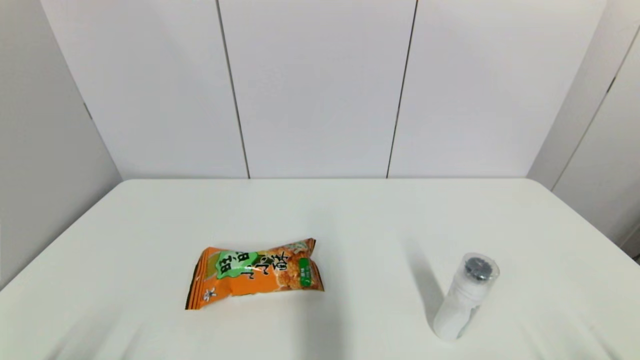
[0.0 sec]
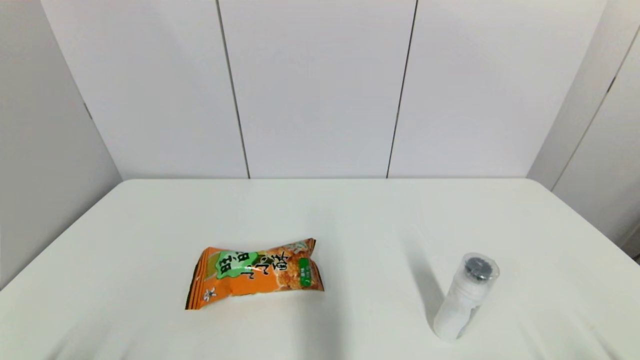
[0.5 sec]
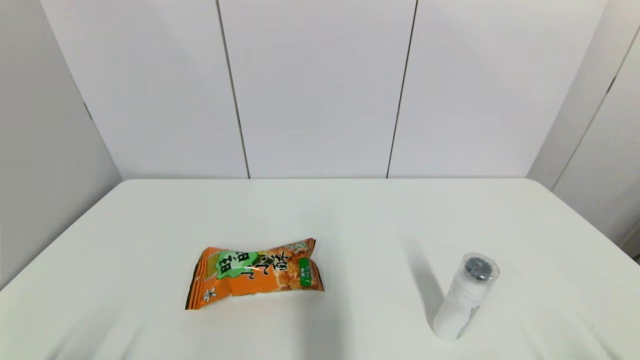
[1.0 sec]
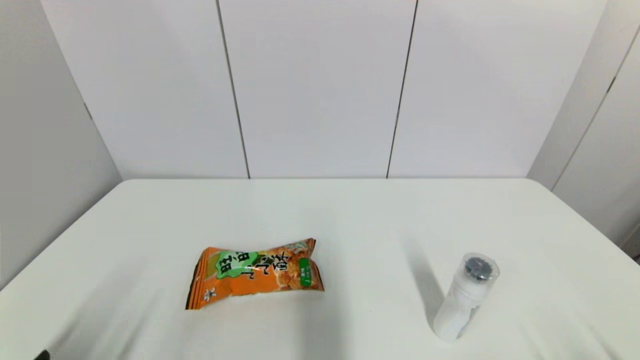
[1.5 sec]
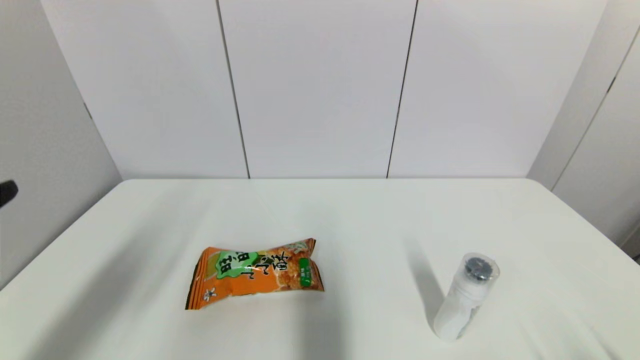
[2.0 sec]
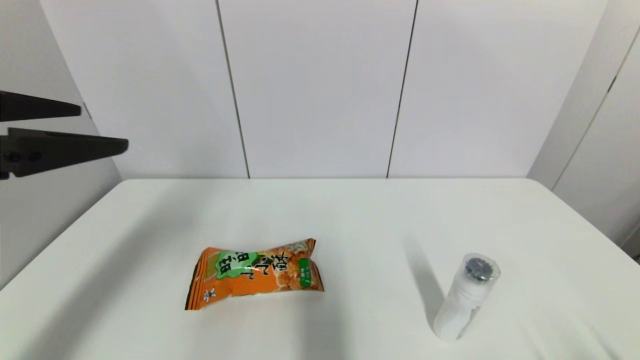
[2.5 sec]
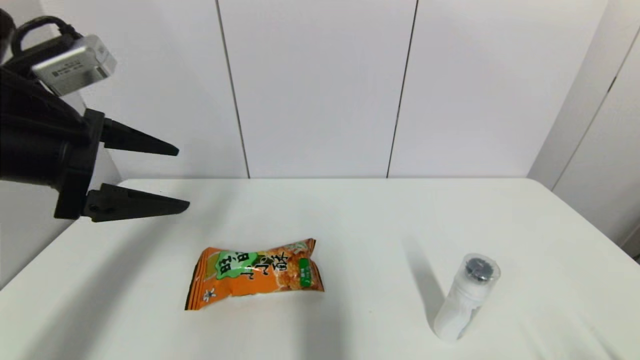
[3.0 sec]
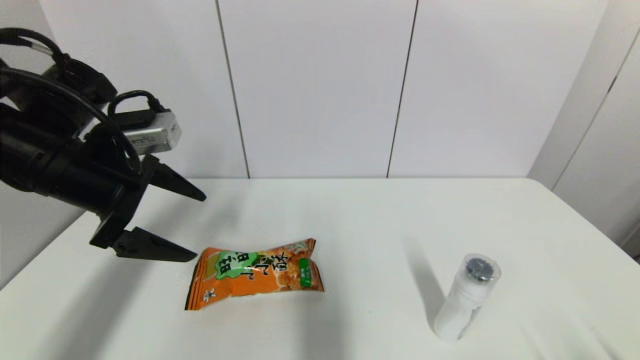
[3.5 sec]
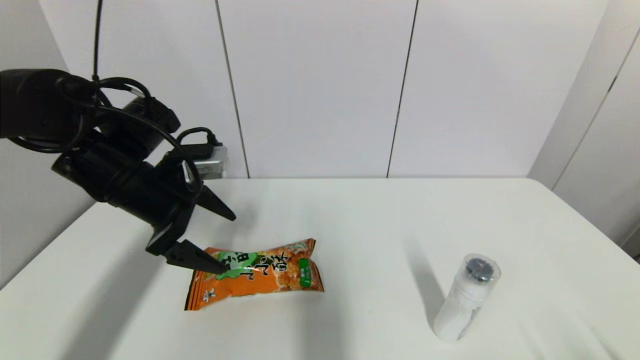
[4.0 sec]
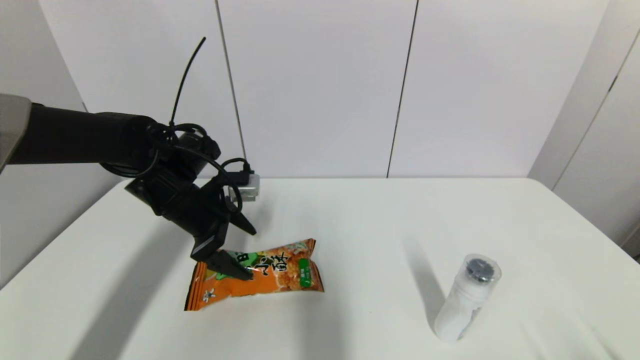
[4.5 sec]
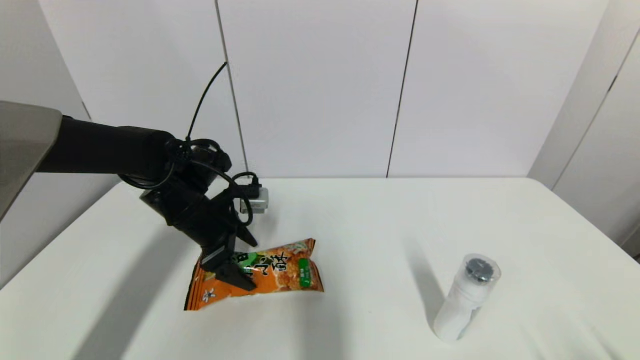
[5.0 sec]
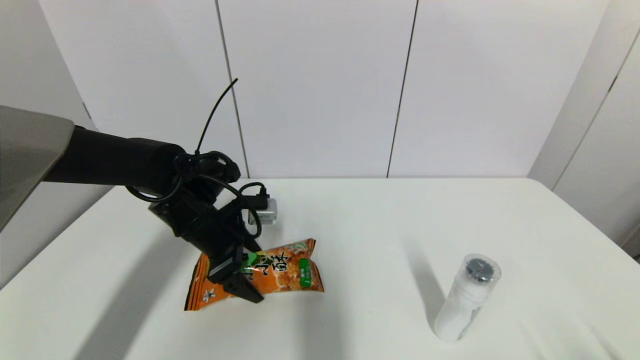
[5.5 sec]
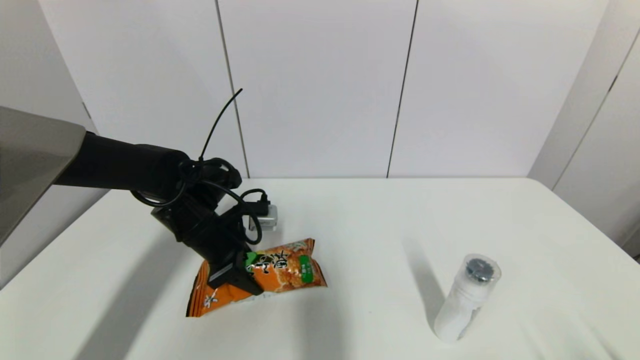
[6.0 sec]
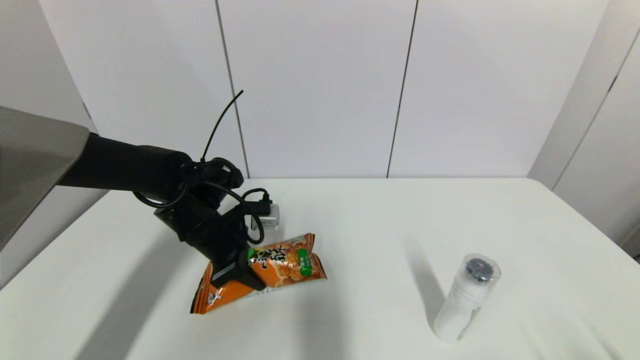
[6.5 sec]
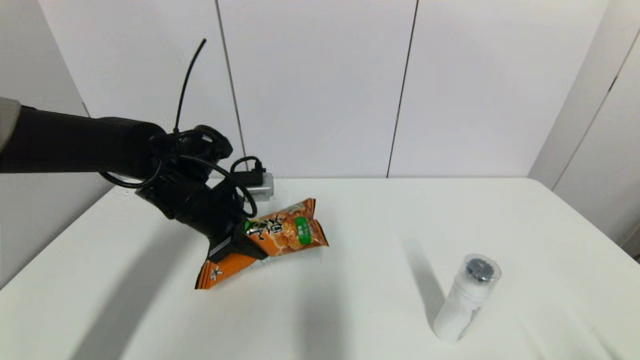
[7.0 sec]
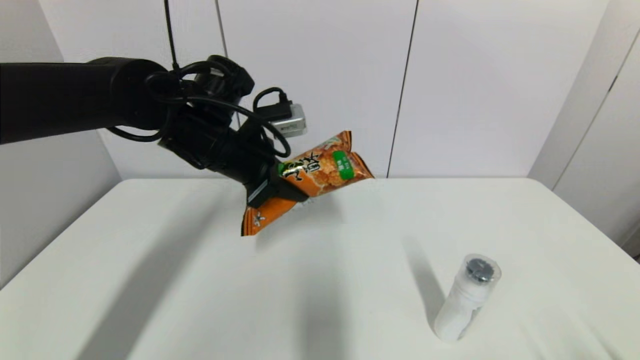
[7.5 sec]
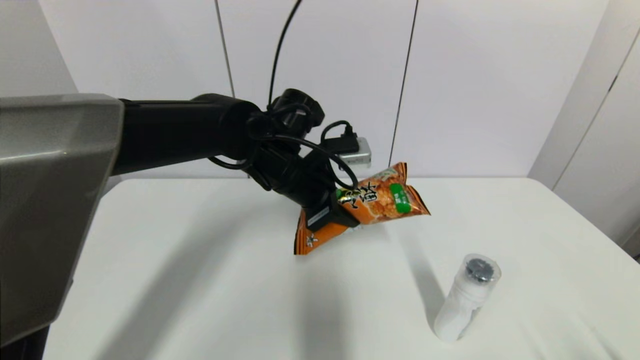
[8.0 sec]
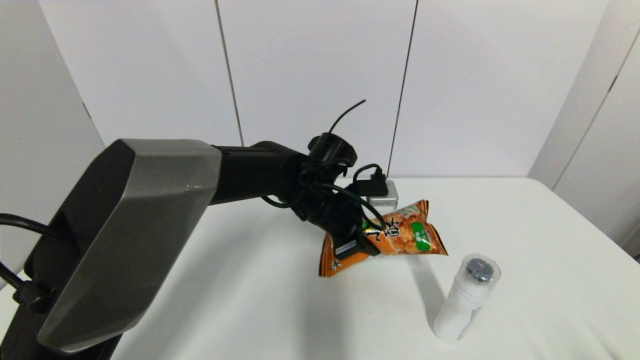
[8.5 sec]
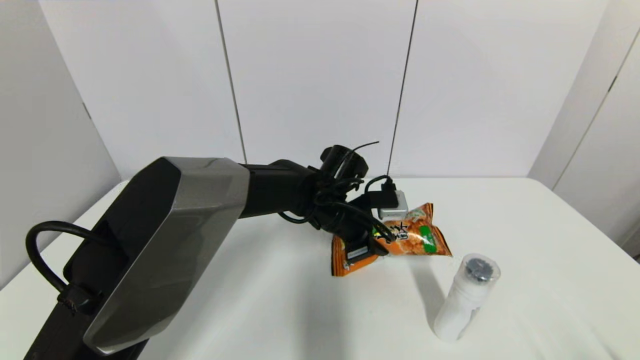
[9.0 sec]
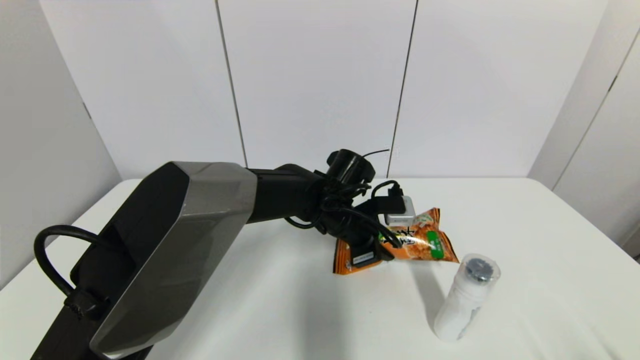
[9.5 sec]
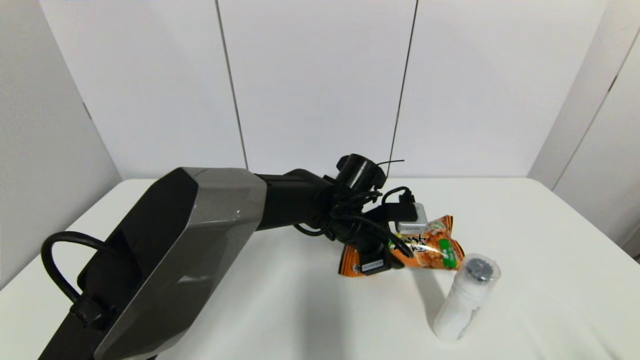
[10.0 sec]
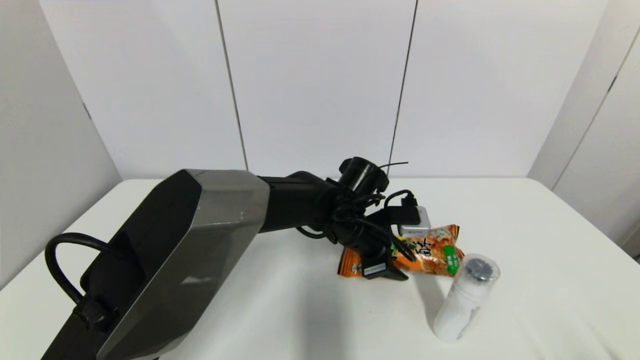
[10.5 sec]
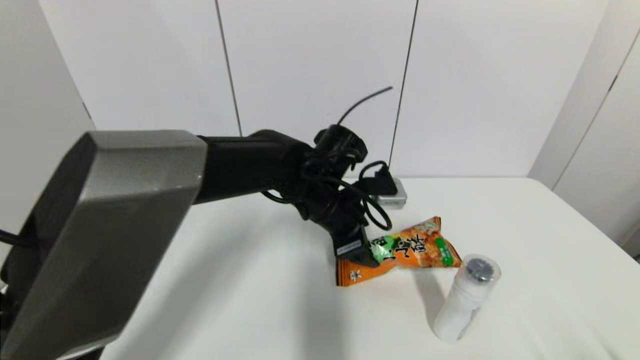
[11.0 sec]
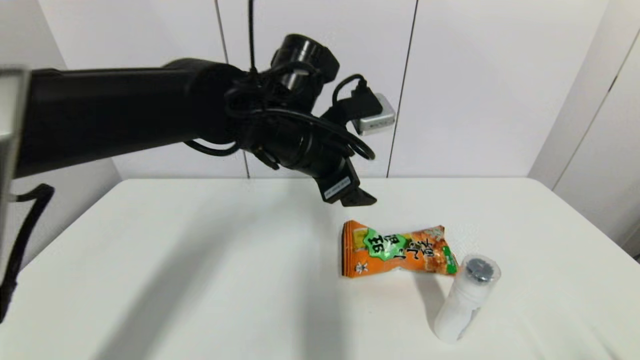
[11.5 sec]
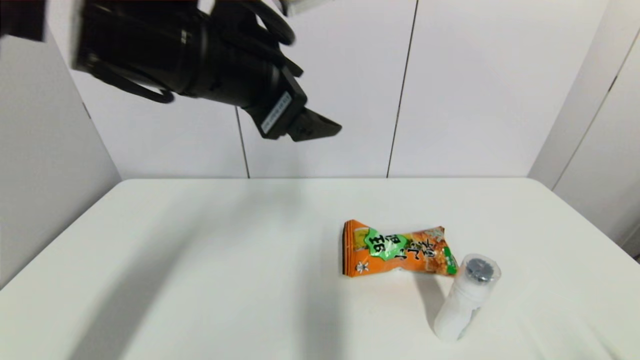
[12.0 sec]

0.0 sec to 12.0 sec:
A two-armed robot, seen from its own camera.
Step, 2.0 sec to 6.0 sec: Grasp the cookie with left gripper.
Step, 7.0 sec to 11.0 sec: Place the cookie on the table with left gripper.
0.0 sec to 2.0 sec: The left gripper shifts some 20 cm upward.
2.0 sec to 4.0 sec: The left gripper is displaced forward by roughly 25 cm.
4.0 sec to 6.0 sec: The left gripper travels downward by about 10 cm, and closes.
6.0 sec to 8.0 sec: The left gripper is displaced to the right and upward by some 15 cm.
8.0 sec to 10.0 sec: The left gripper is displaced downward and to the right by about 15 cm.
10.0 sec to 12.0 sec: The left gripper shifts some 35 cm upward, to the left and backward, and opens.

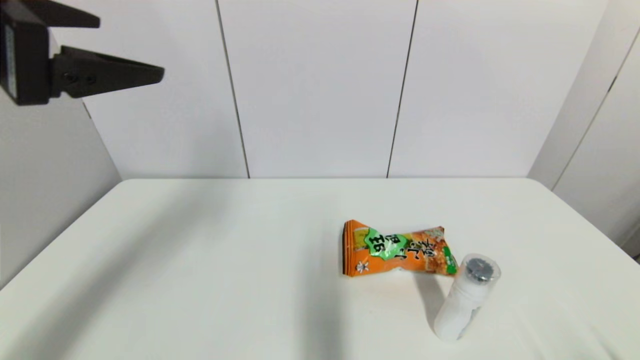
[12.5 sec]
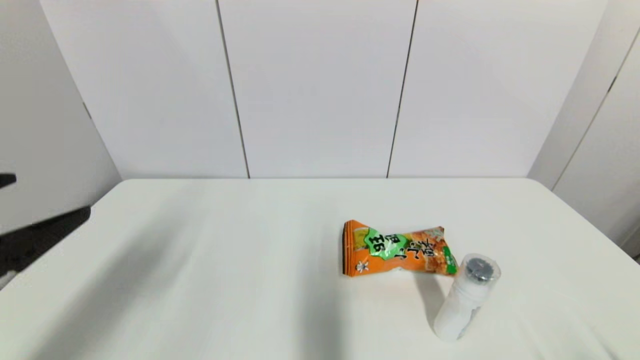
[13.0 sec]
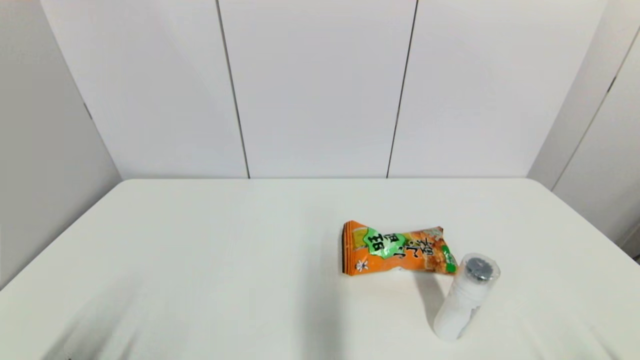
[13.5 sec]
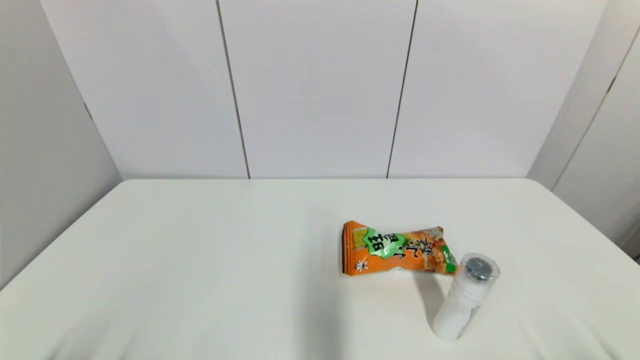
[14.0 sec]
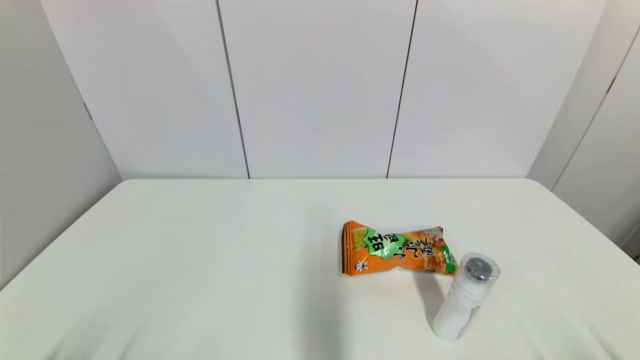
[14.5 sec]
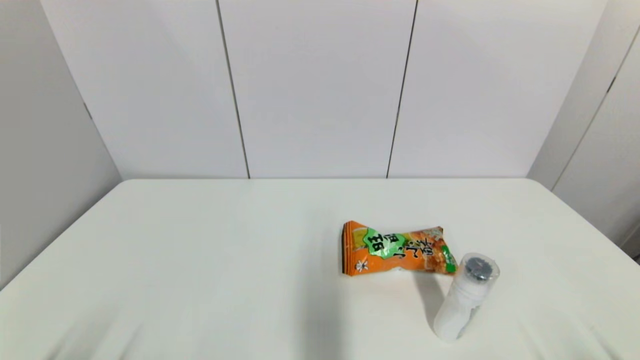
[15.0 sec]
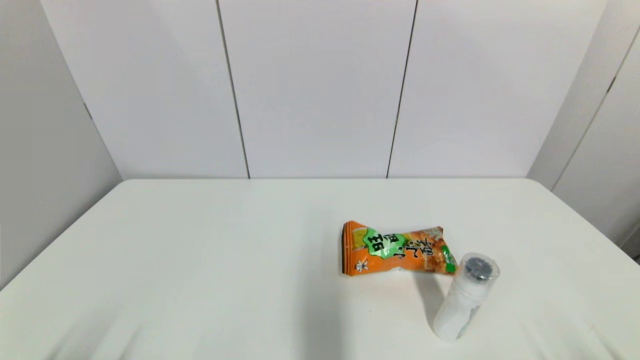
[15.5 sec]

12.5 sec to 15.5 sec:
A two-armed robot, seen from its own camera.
12.5 sec to 14.0 sec: The left gripper is displaced downward and backward by roughly 35 cm.
14.0 sec to 15.5 sec: The two grippers keep their place.
